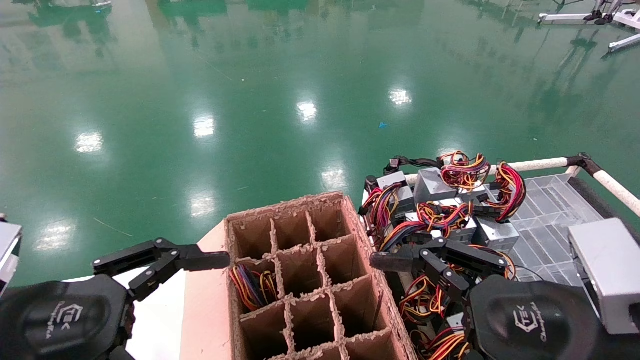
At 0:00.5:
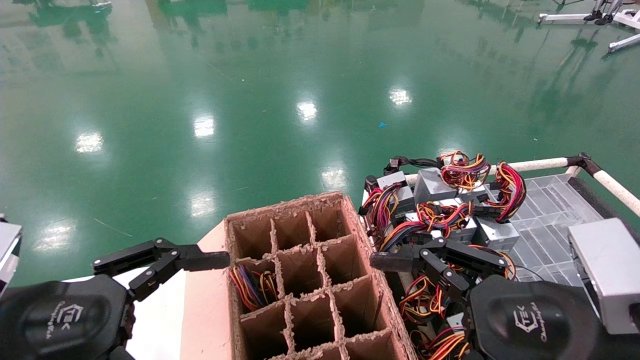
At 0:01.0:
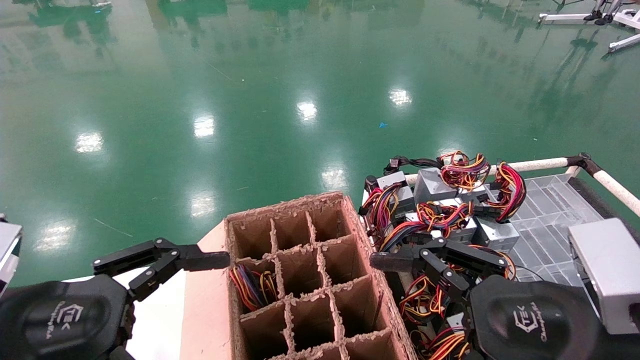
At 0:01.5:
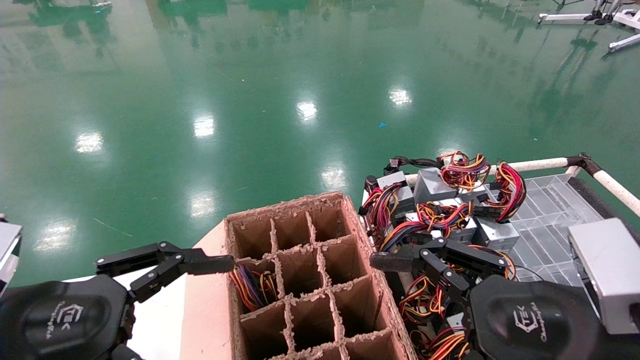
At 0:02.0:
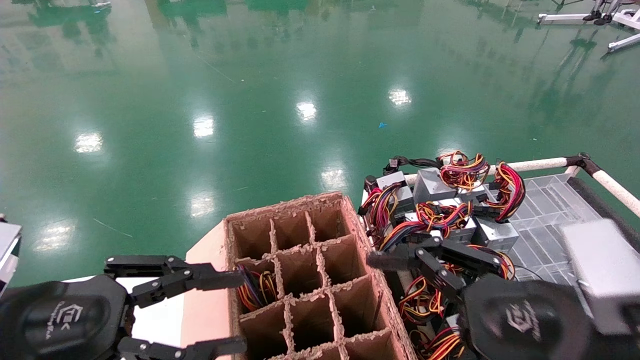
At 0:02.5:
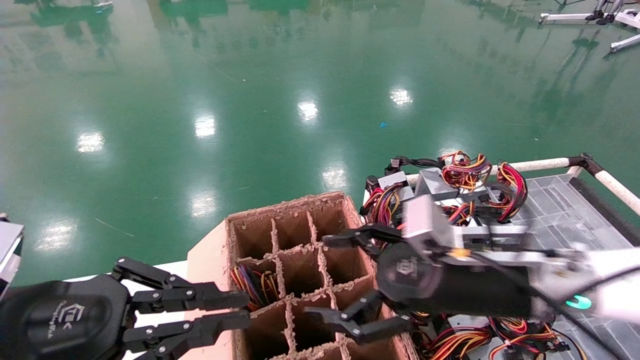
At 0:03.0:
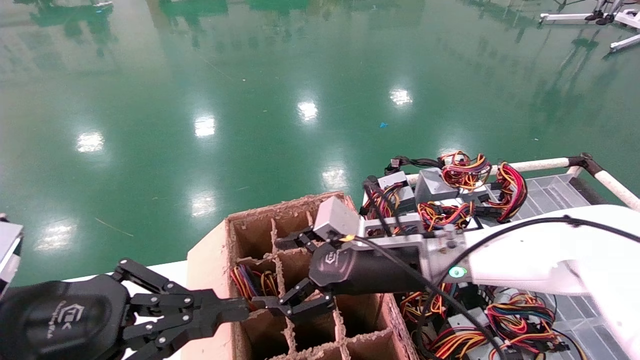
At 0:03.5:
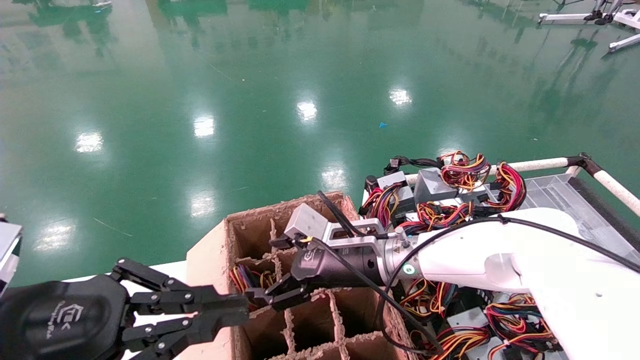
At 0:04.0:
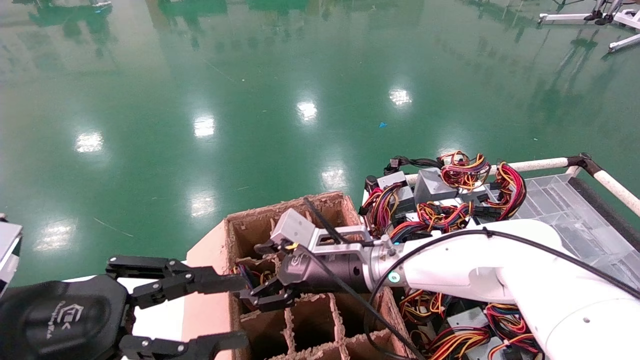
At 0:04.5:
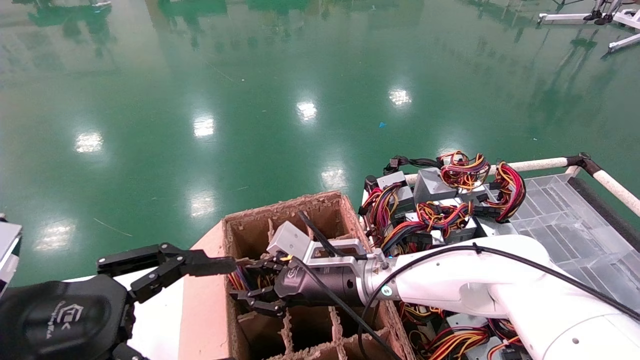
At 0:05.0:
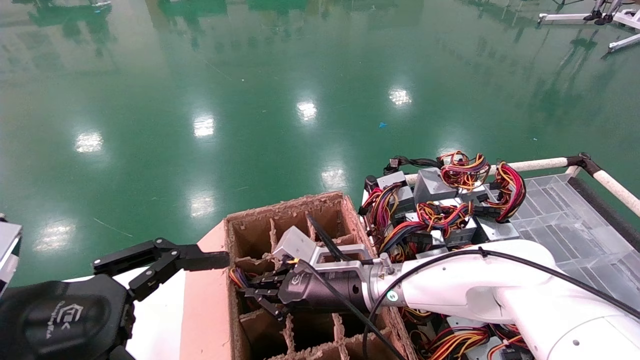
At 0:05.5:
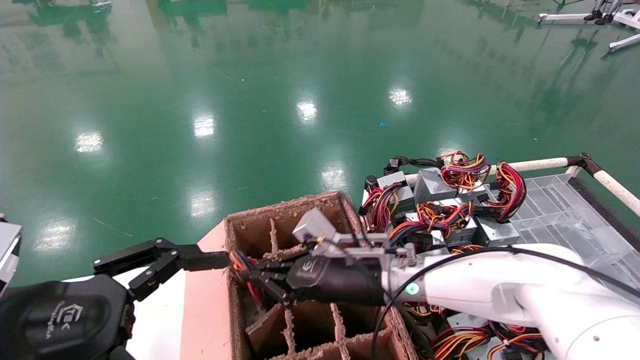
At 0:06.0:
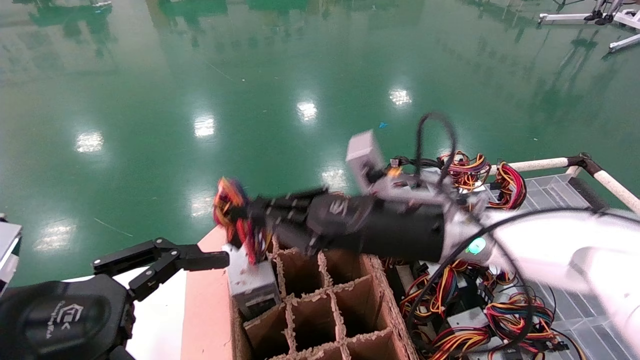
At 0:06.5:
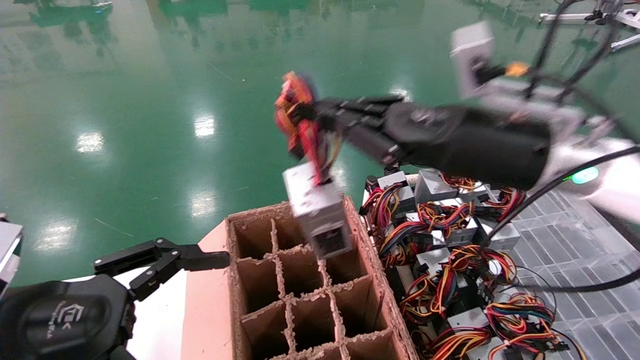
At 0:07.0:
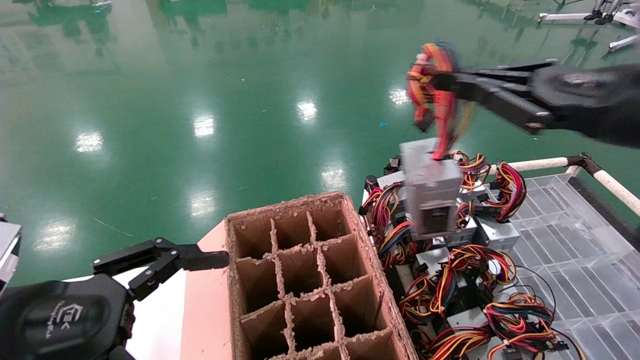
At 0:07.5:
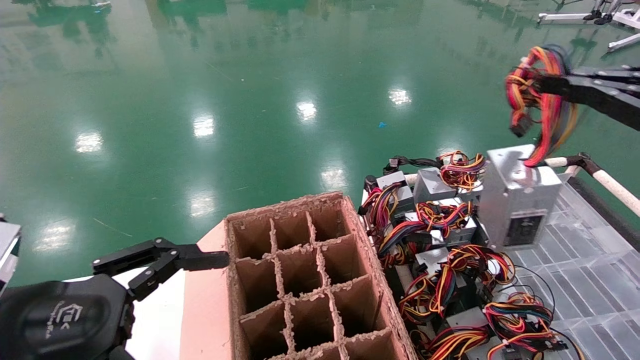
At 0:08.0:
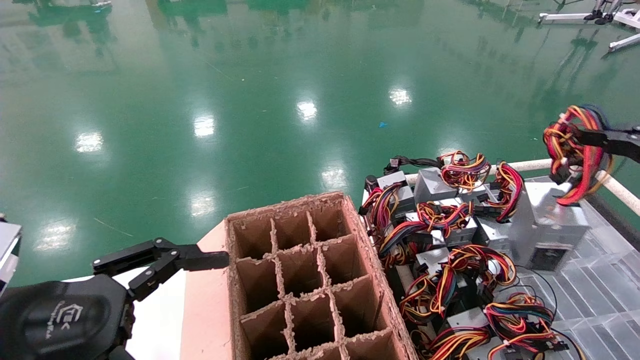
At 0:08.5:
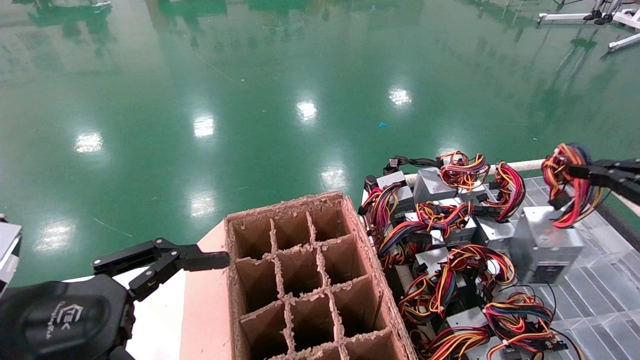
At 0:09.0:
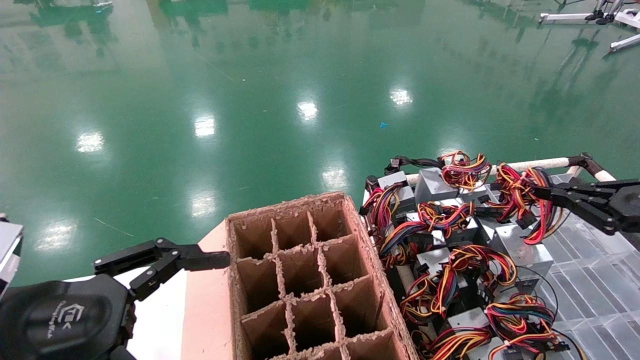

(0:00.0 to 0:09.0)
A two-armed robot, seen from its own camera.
Step, 0:03.0 - 0:05.0: Grab and lift the power supply from the large box.
0:00.0 - 0:02.0: The left gripper closes.
0:02.0 - 0:04.5: The right gripper goes about 30 cm forward and to the left, and closes, while the left gripper closes, then opens again.
0:04.5 - 0:07.0: The right gripper shifts some 40 cm to the right, upward and backward, and closes up.
0:07.0 - 0:09.0: The right gripper shifts roughly 20 cm to the right and downward.

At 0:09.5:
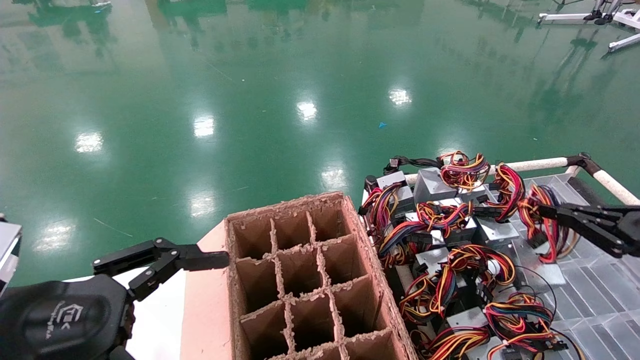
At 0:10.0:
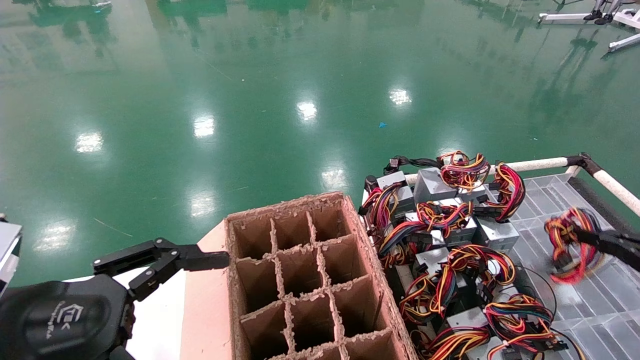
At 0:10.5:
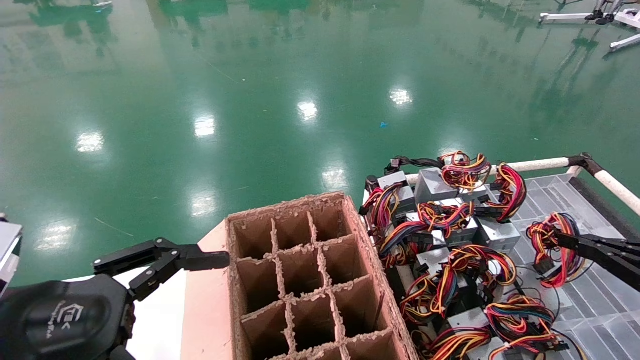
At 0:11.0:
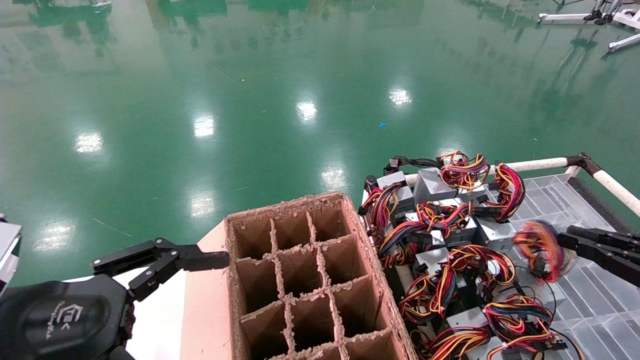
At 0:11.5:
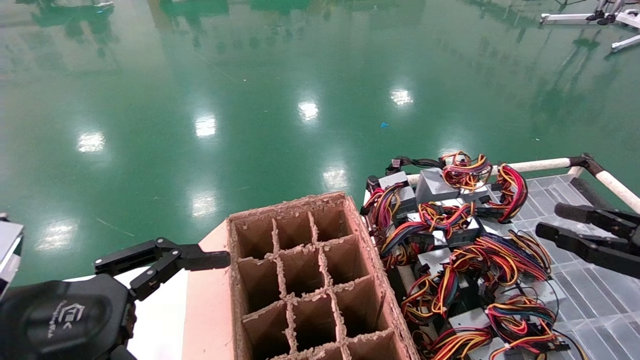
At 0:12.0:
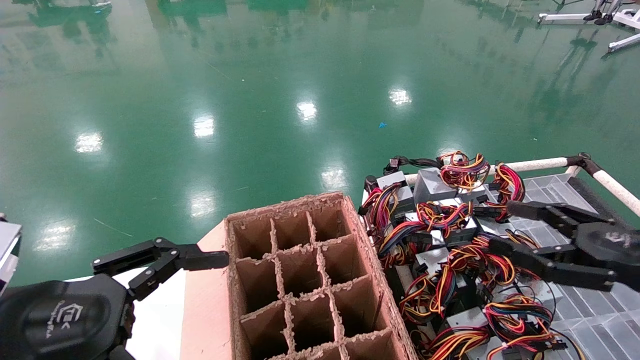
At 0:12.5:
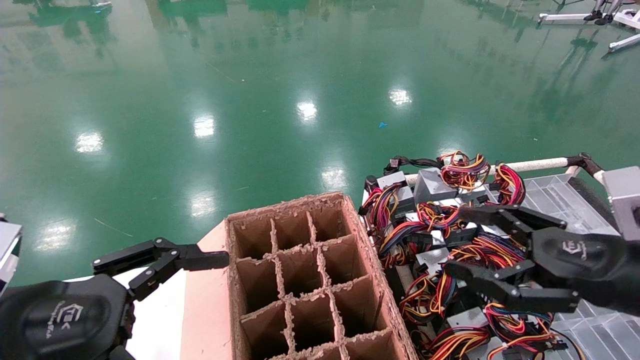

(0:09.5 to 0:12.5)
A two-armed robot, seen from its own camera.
0:09.5 - 0:11.0: The grippers move only a little.
0:11.0 - 0:12.5: The right gripper shifts some 15 cm to the left, and opens.
